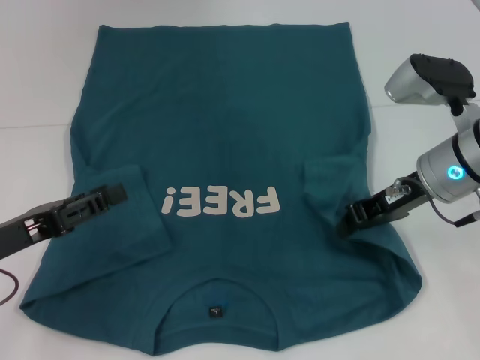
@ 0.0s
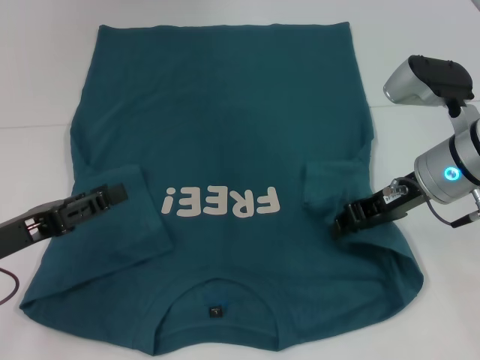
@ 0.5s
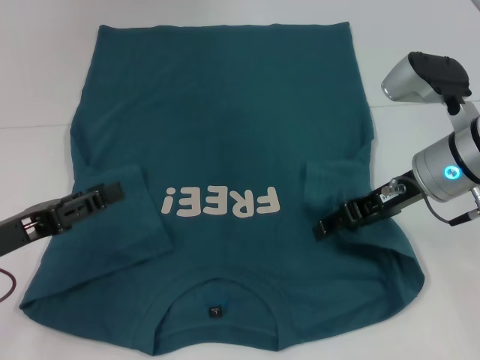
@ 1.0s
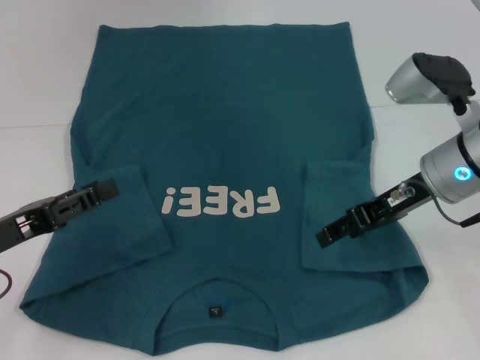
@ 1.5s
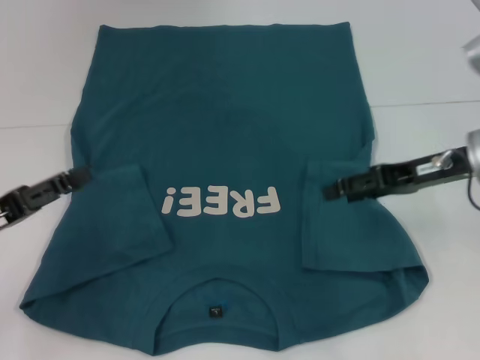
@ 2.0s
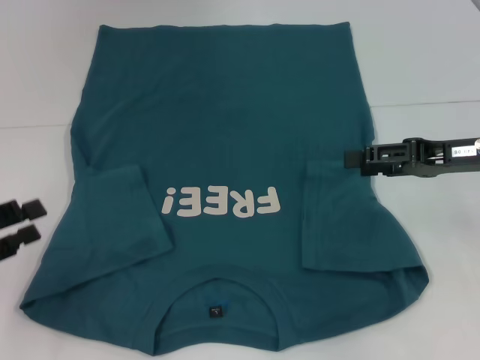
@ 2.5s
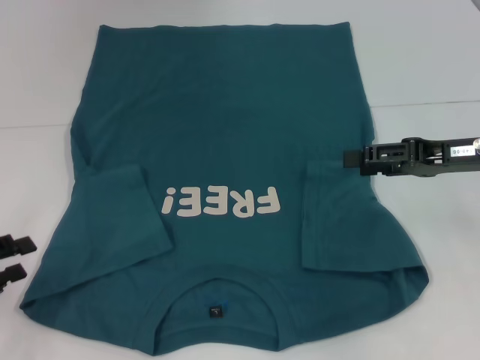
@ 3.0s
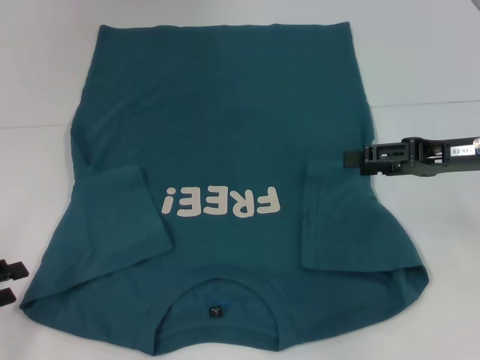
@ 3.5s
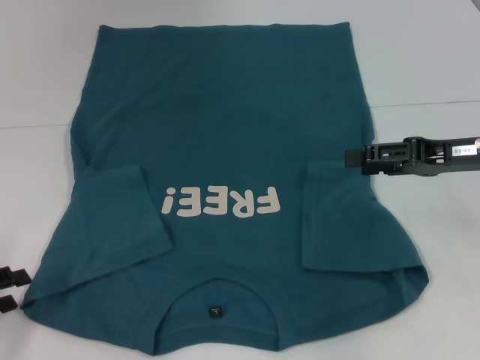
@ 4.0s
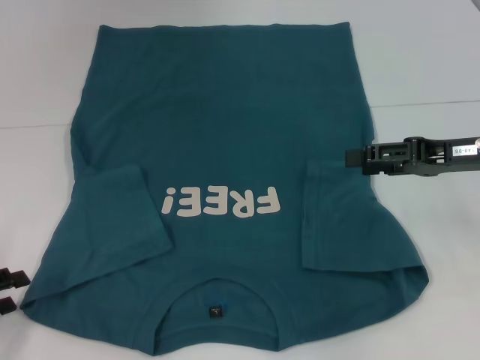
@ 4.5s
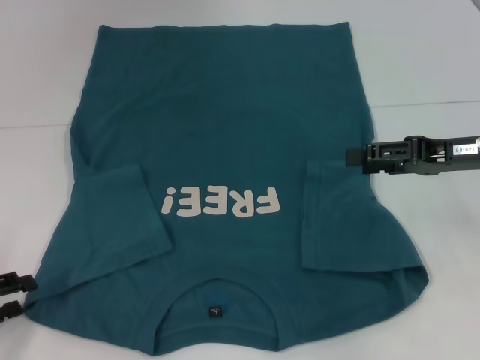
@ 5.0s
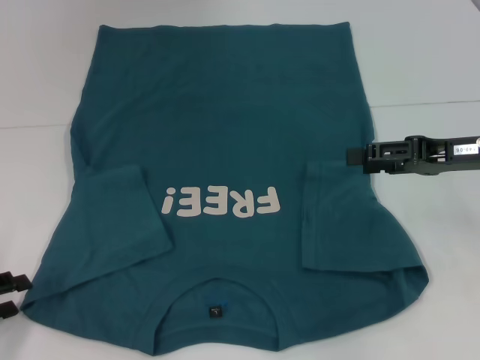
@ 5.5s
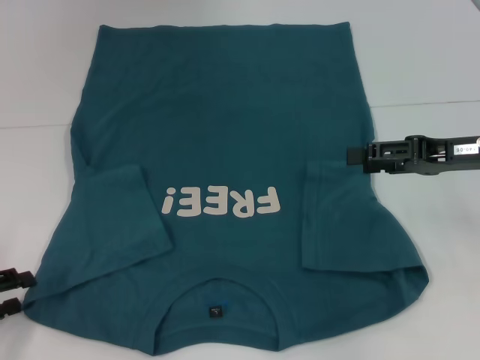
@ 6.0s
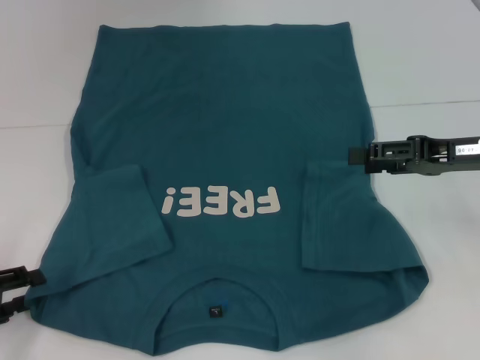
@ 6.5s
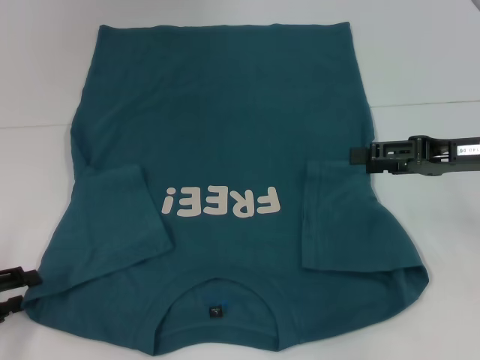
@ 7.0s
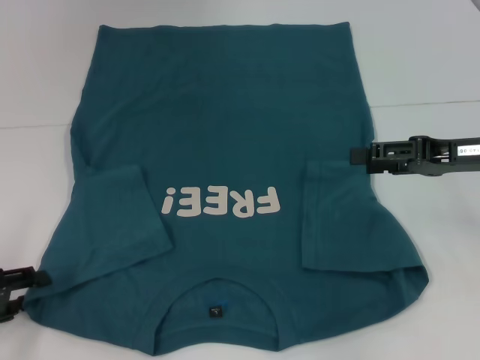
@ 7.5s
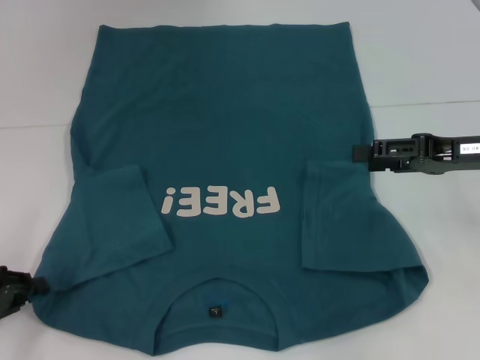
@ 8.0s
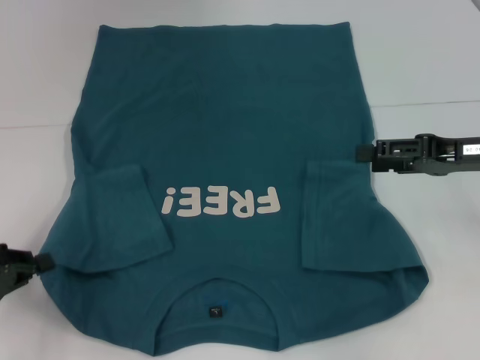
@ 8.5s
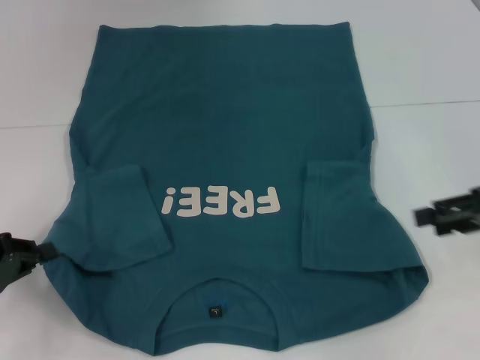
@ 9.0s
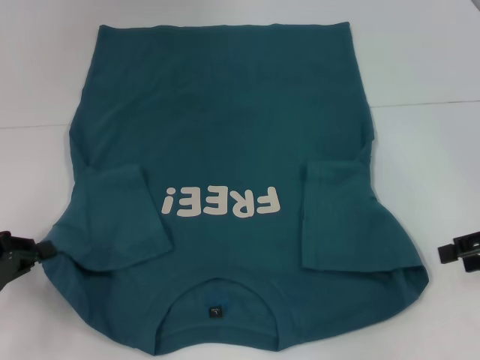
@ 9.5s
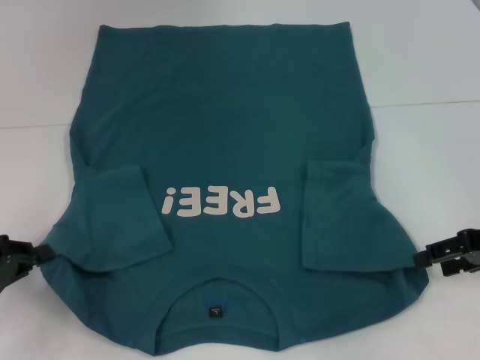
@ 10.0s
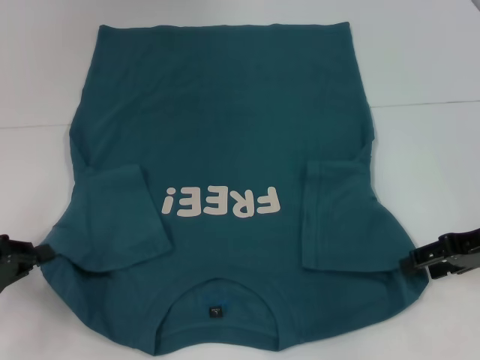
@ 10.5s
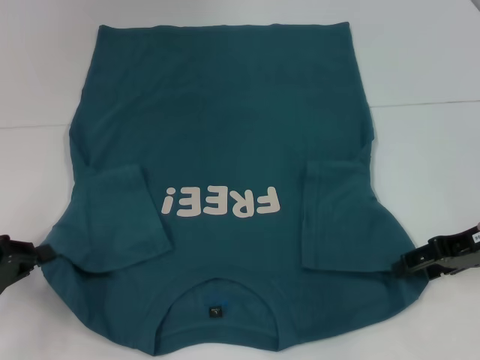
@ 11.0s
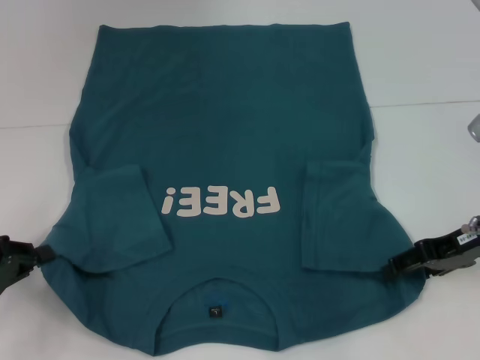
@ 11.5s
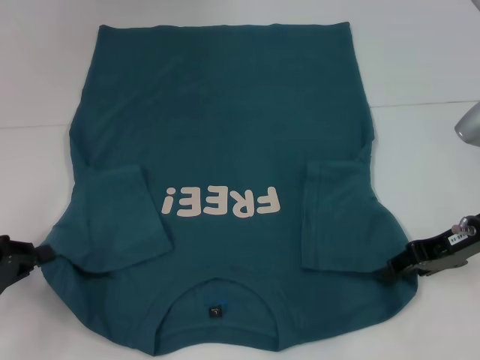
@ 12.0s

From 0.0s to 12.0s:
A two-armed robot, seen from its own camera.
Step, from 2.0s to 8.0s: Grab the bottom left corner with your left hand.
From 0.0s to 2.0s: The right gripper opens up.
From 2.0s to 4.0s: The left gripper heads to the left, covering approximately 5 cm.
From 4.0s to 6.0s: The two grippers keep their place.
From 6.0s to 8.0s: The grippers stay close to where they were, moving slightly.
From 8.0s to 10.0s: The left gripper closes, while the right gripper ends up about 5 cm from where it was.
From 10.0s to 12.0s: The right gripper shifts roughly 5 cm to the left.

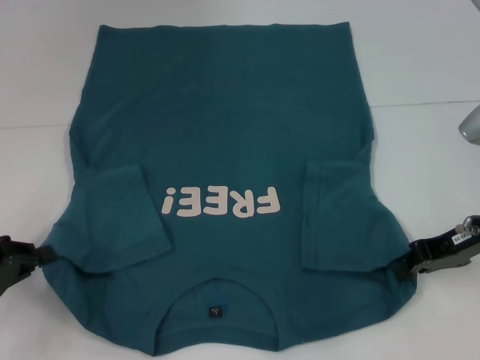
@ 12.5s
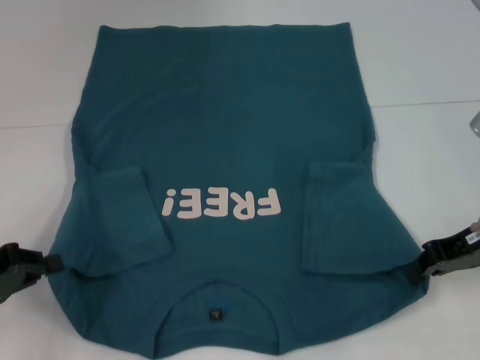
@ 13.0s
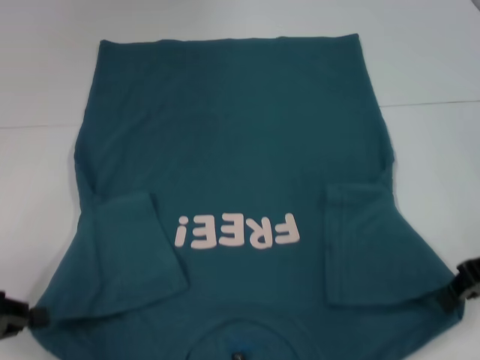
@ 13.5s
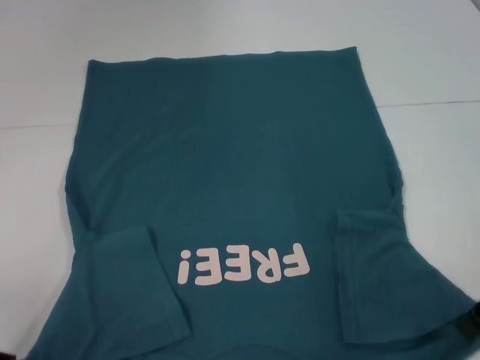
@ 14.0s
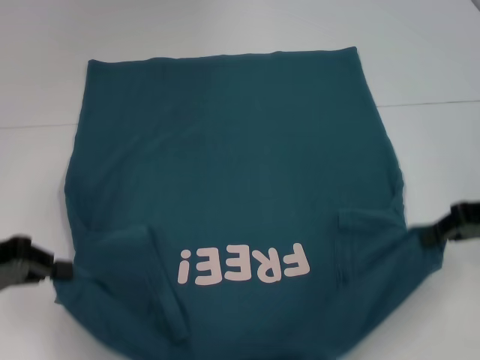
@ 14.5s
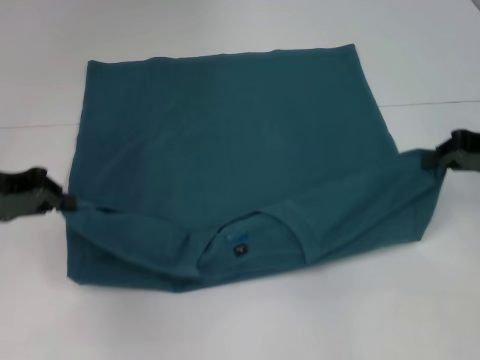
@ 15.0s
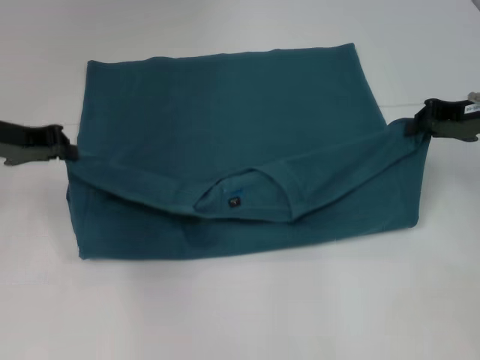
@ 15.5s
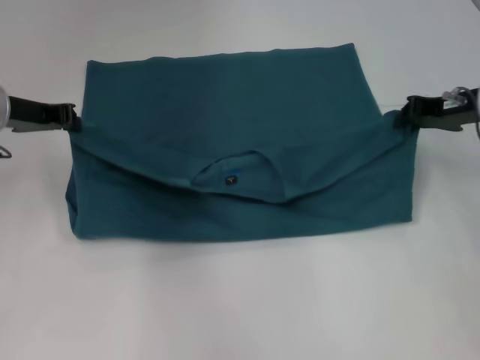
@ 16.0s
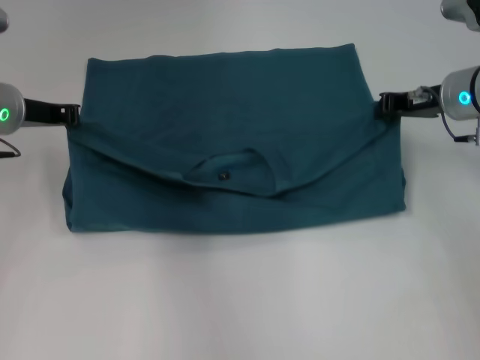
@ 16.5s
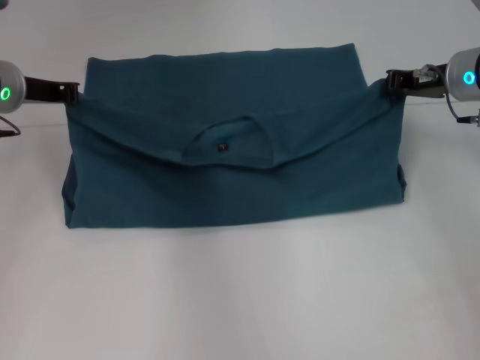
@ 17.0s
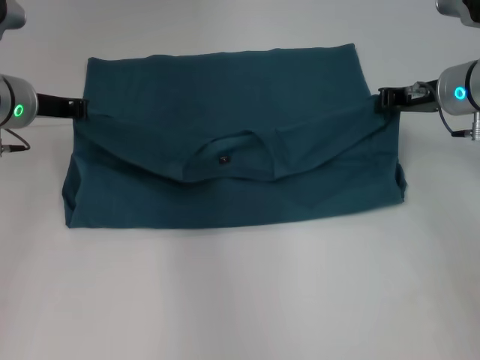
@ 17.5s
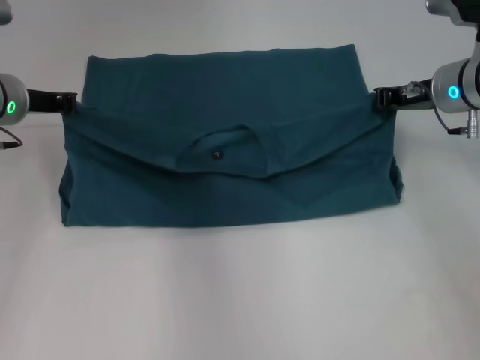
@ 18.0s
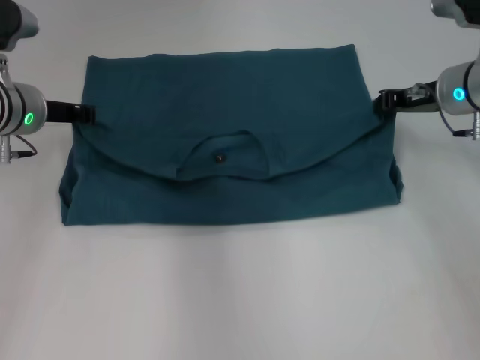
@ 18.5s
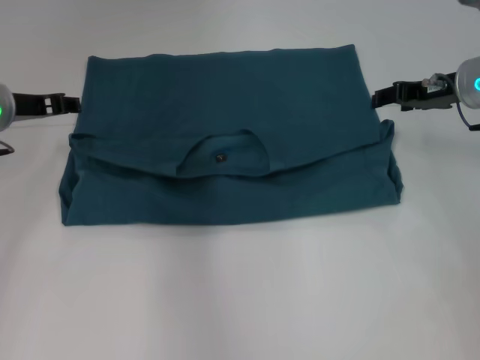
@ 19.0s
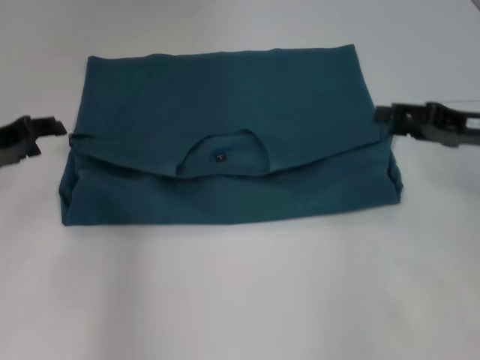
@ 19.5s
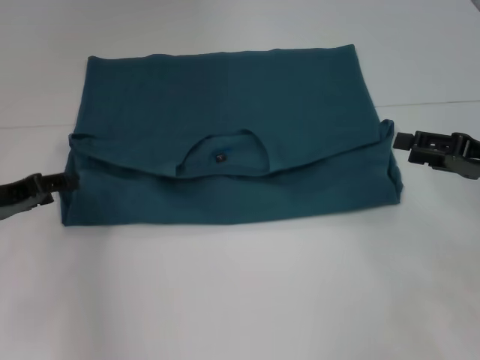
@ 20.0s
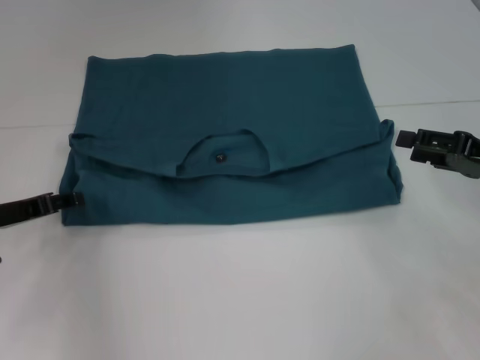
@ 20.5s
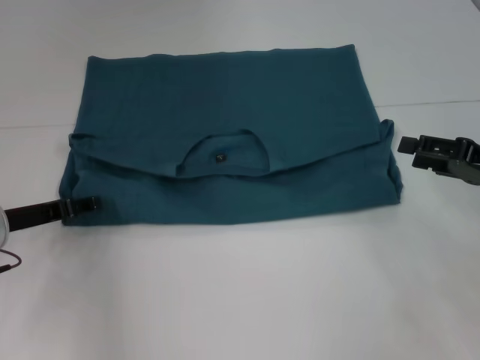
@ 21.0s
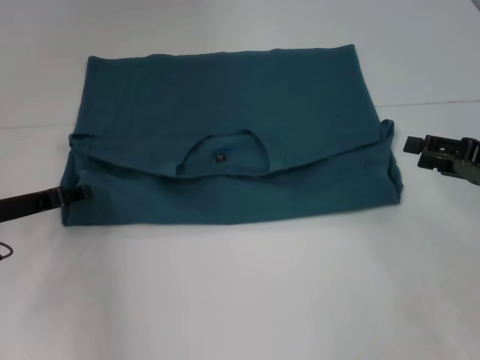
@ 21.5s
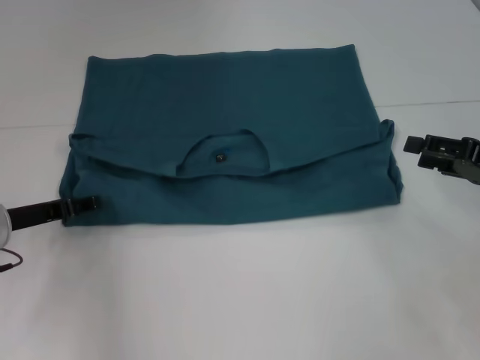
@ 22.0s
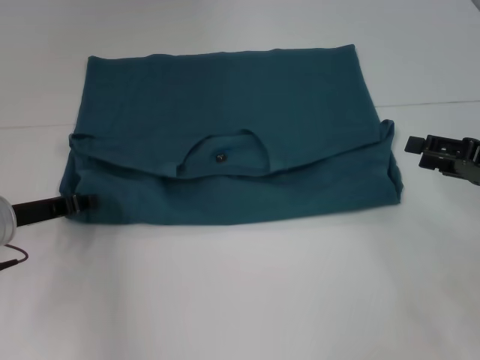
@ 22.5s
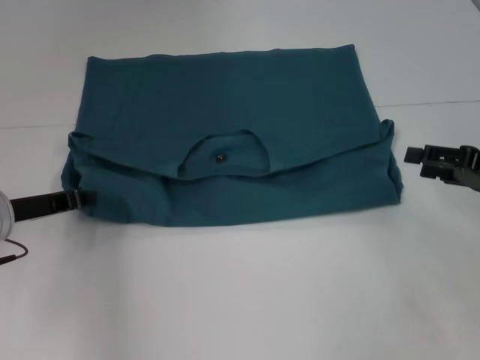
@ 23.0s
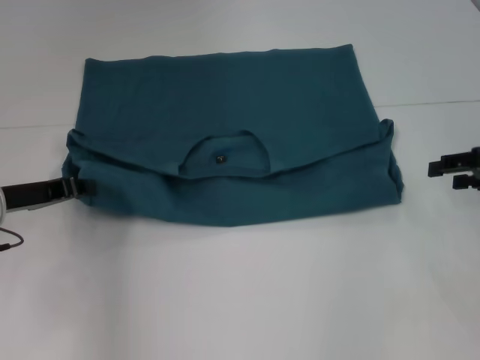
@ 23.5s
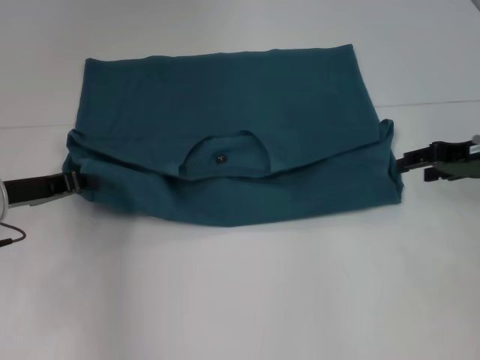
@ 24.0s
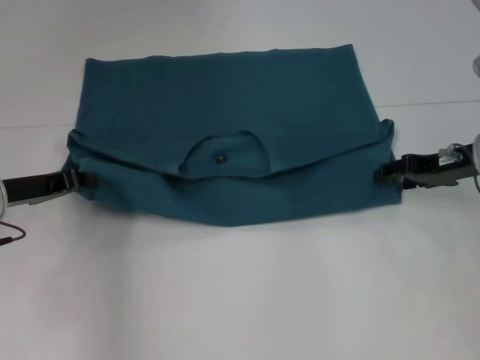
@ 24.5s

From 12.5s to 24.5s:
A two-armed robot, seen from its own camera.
Step, from 13.0s to 18.5s: Fold the clothes to the left.
Step, from 13.0s to 18.5s: Fold the clothes to the right.
From 12.5s to 14.5s: The left gripper goes approximately 5 cm upward. Meanwhile the right gripper shifts by roughly 5 cm.
From 14.5s to 16.5s: The left gripper moves forward and to the right, roughly 15 cm. Meanwhile the right gripper heads forward and to the left, covering roughly 15 cm.
From 16.5s to 18.5s: The grippers make only small movements.
From 18.5s to 20.5s: The left gripper heads backward, to the left and downward, covering approximately 15 cm, and opens, while the right gripper goes about 15 cm backward and to the right, and opens up.
From 20.5s to 22.5s: The grippers stay close to where they were, moving slightly.
From 22.5s to 24.5s: The left gripper closes; the right gripper heads forward and to the left, covering approximately 10 cm.

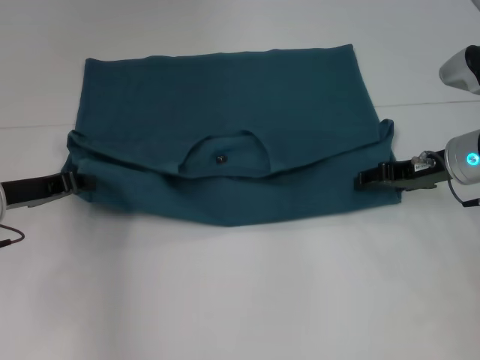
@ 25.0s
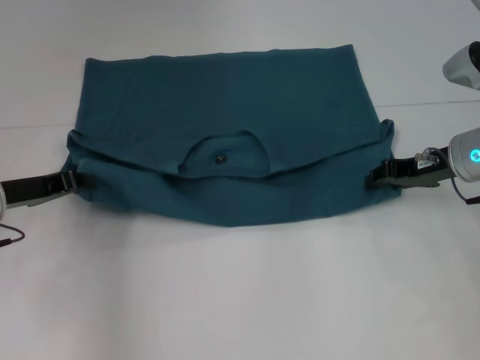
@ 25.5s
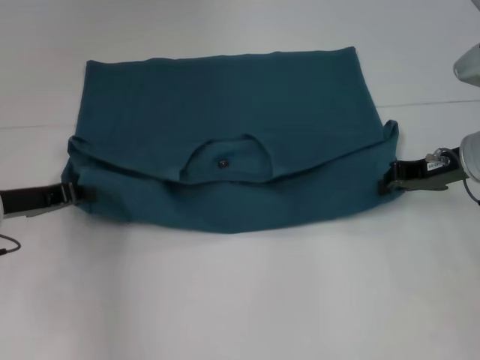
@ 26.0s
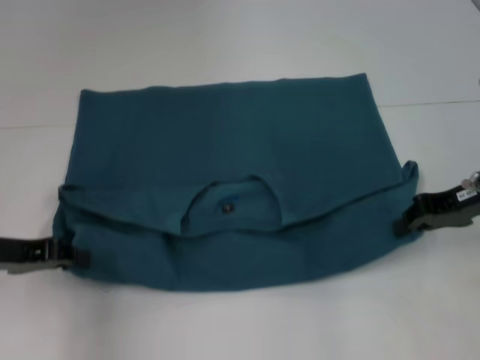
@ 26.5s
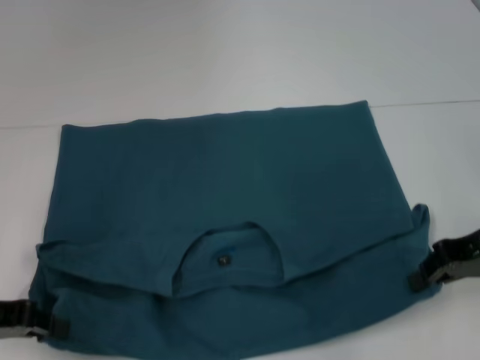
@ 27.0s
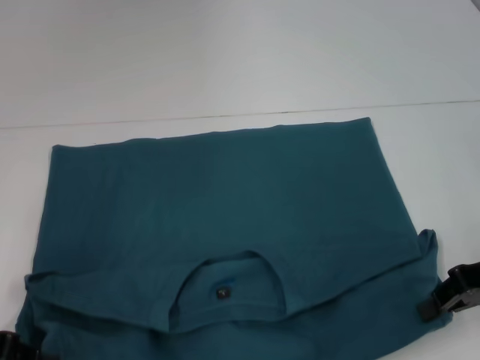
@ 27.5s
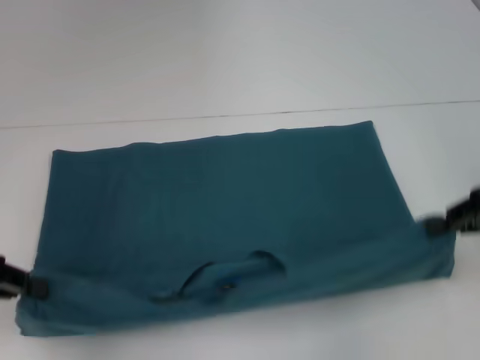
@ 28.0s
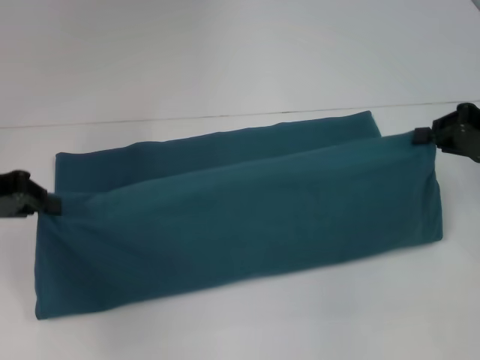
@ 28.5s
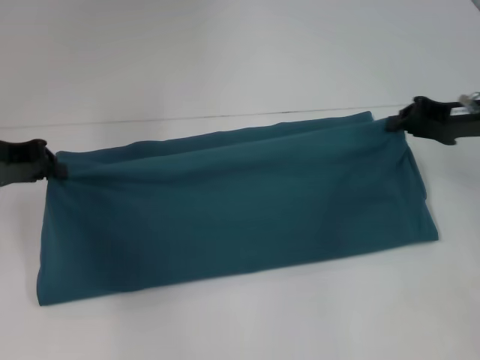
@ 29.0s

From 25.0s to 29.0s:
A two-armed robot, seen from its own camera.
Step, from 25.0s to 27.5s: Pull the clothes with your left hand.
Step, from 25.0s to 27.5s: Pull the clothes with your right hand.
From 25.0s to 27.0s: The two grippers go approximately 10 cm backward. The right gripper closes up.
From 27.0s to 29.0s: The left gripper travels forward and upward by about 15 cm; the right gripper is displaced forward by roughly 10 cm.
